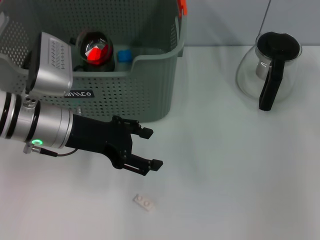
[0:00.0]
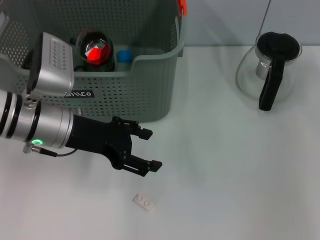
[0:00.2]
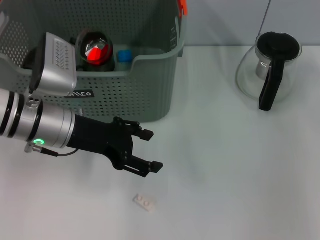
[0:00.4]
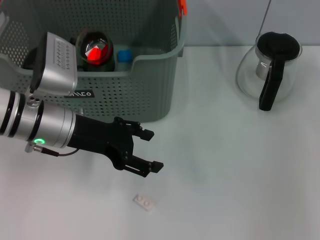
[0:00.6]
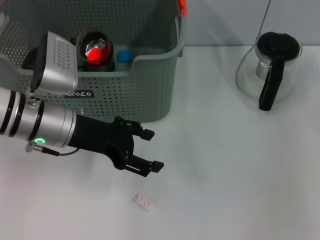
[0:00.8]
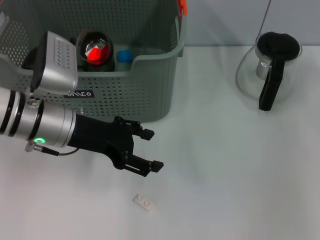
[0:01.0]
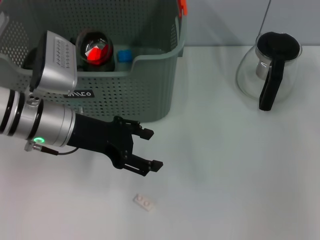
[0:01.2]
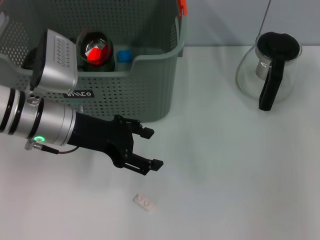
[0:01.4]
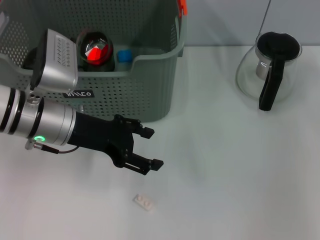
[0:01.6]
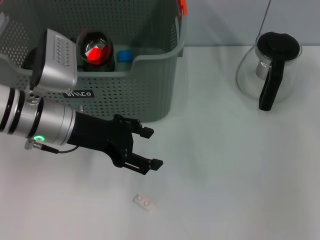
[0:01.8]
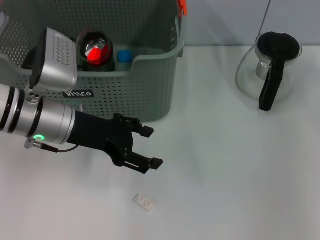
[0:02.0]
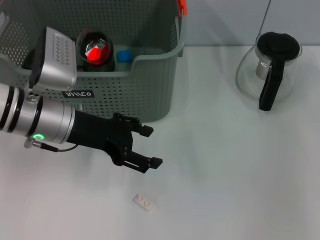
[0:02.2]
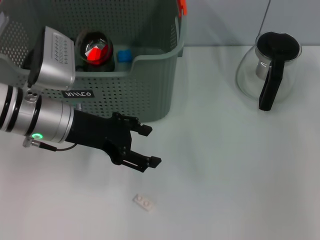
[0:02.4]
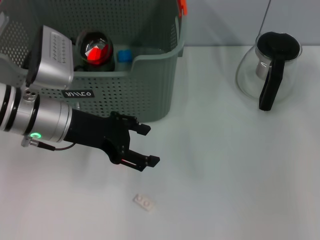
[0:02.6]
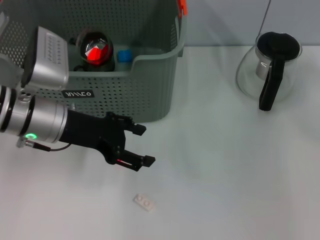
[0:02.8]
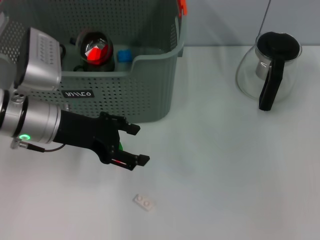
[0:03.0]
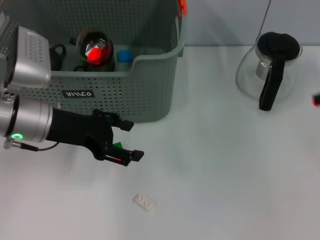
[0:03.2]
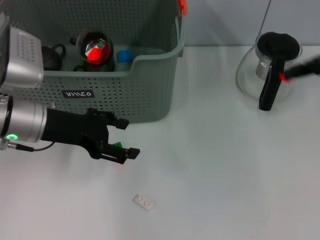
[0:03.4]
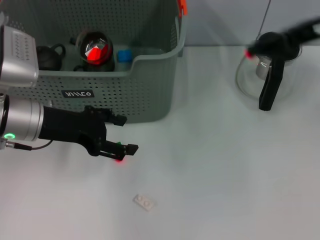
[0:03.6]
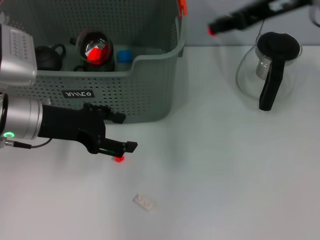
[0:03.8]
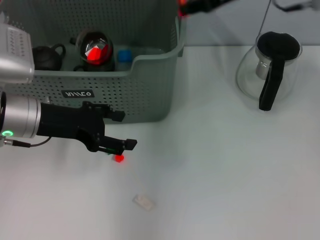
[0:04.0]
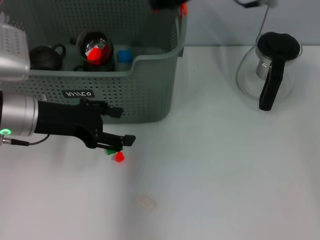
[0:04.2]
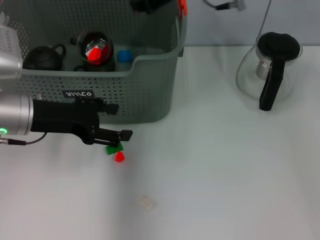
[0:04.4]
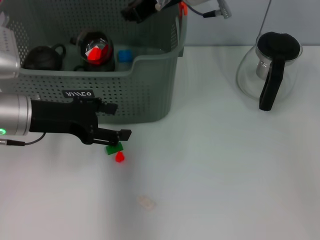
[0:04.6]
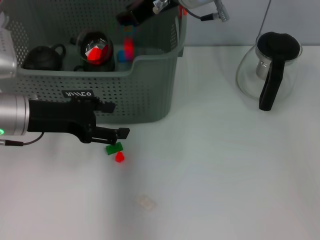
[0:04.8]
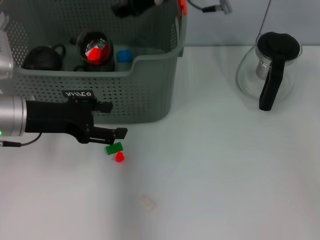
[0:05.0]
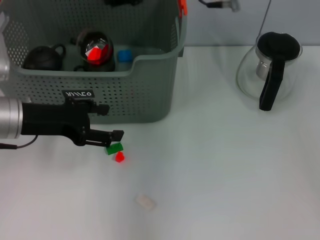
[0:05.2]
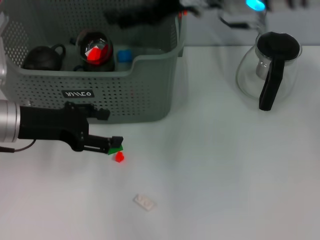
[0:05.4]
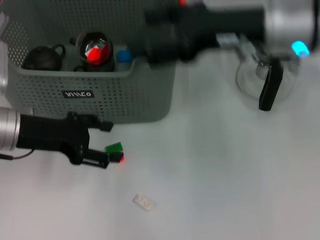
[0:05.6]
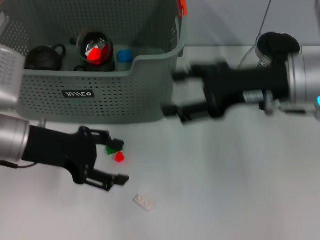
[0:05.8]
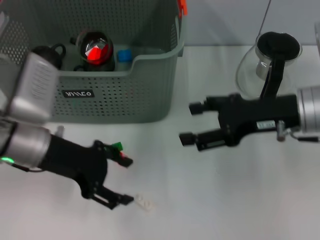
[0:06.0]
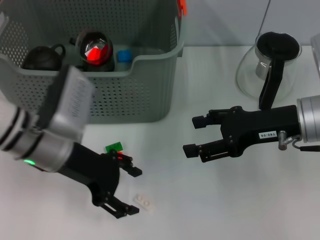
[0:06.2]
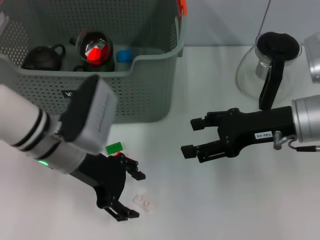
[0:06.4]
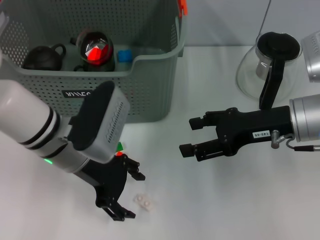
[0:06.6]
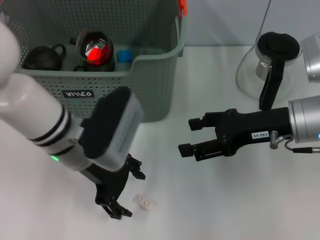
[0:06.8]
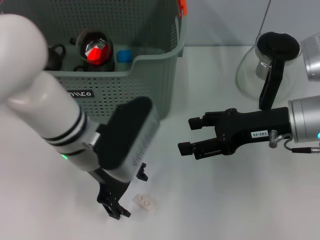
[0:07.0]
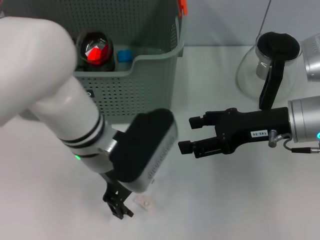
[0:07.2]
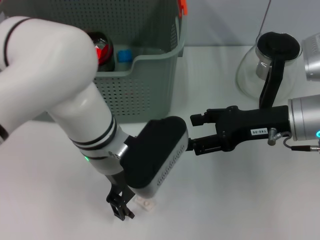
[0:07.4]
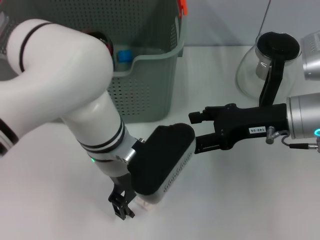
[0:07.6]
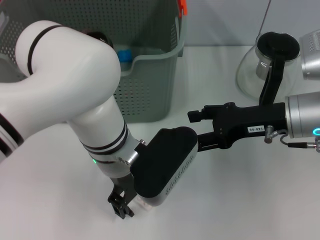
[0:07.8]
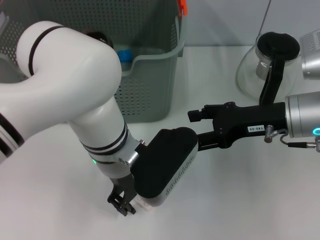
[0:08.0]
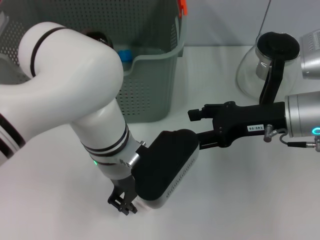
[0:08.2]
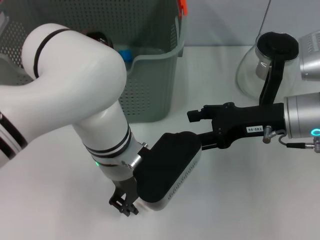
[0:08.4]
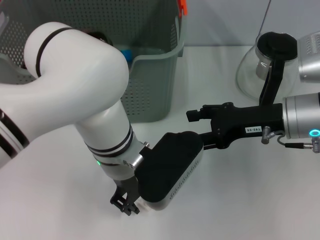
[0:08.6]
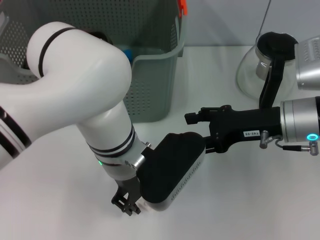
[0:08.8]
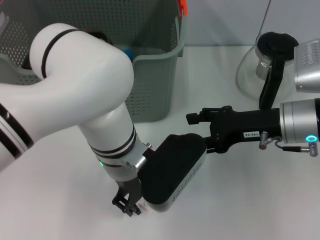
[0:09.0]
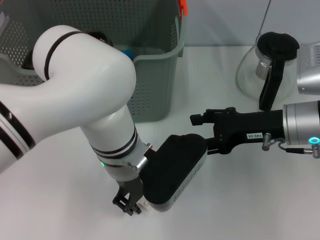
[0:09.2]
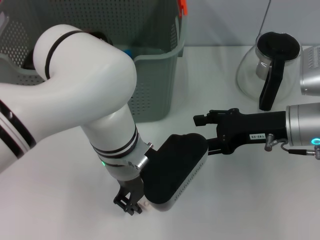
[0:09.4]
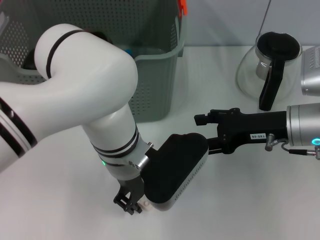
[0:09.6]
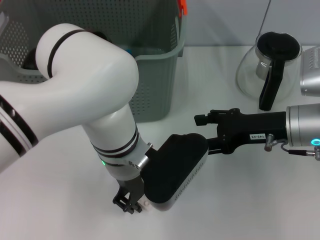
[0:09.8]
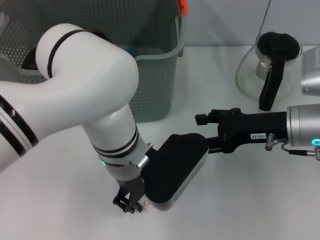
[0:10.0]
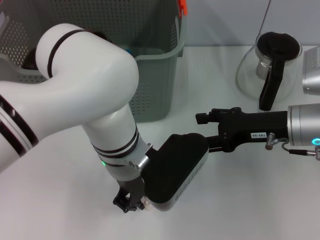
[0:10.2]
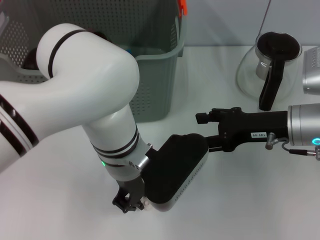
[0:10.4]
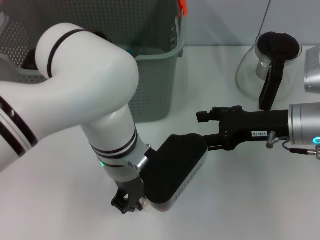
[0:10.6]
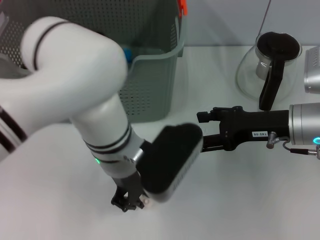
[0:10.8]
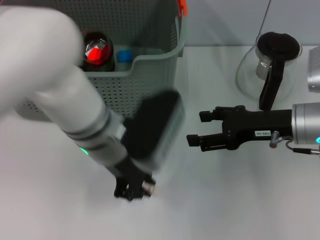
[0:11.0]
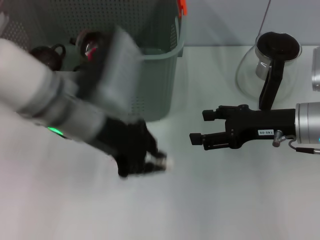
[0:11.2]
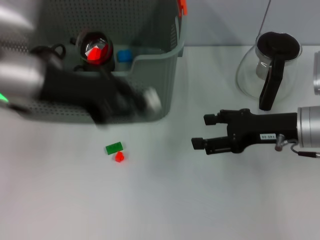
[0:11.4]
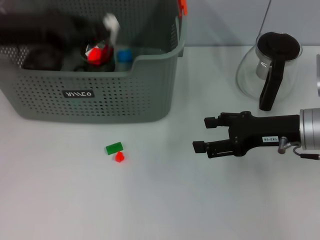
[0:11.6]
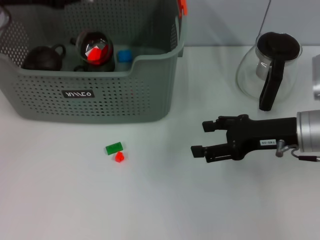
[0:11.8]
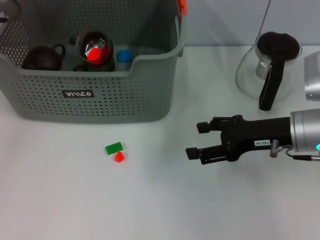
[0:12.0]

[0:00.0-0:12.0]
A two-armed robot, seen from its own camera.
Task of the whole recording: pick up the teacup on the table and place it into the storage bin, pick up the block on the table and place it into the storage bin.
Step, 0:00.0 to 0:02.0: Grasp the orange block with left gripper.
Step, 0:05.2 to 0:10.4: Grasp the white block with left gripper.
0:00.0 to 0:01.6: Both grippers stay about where they are.
0:01.6 to 0:03.0: The right gripper is displaced to the left, upward and forward by about 15 cm, and closes up.
0:03.0 to 0:04.4: The right gripper moves to the left, about 30 cm.
0:04.4 to 0:06.0: The right gripper moves to the right, backward and downward, roughly 20 cm, and opens.
0:06.0 to 0:07.6: The left gripper travels to the right by approximately 15 cm.
0:07.6 to 0:09.0: The left gripper closes up.
0:09.0 to 0:10.4: The grippers make only small movements.
0:10.4 to 0:12.0: The left gripper goes roughly 25 cm to the left, forward and upward.

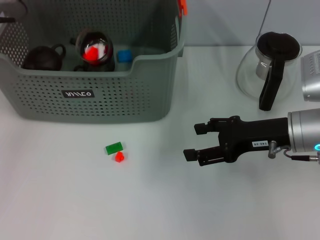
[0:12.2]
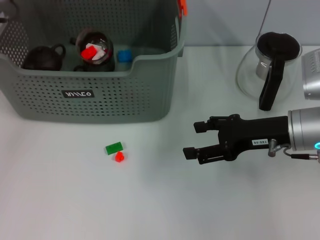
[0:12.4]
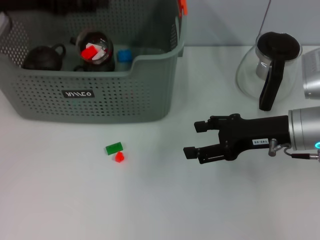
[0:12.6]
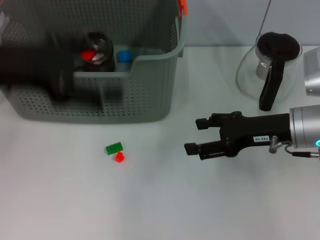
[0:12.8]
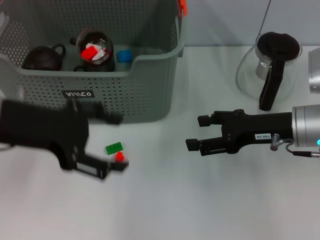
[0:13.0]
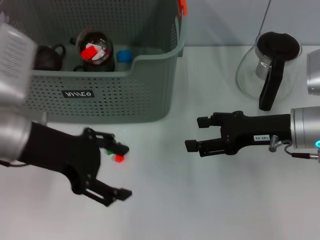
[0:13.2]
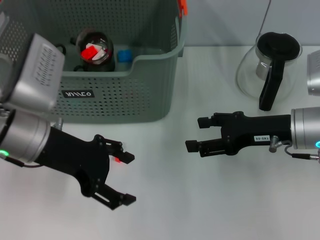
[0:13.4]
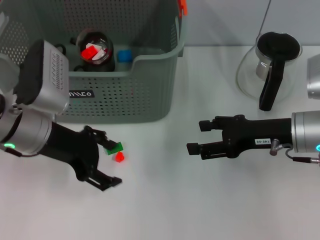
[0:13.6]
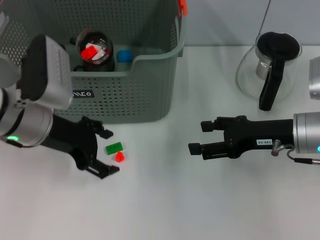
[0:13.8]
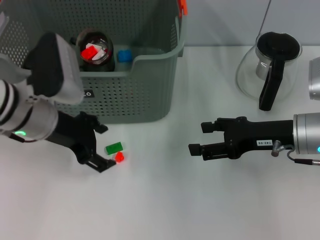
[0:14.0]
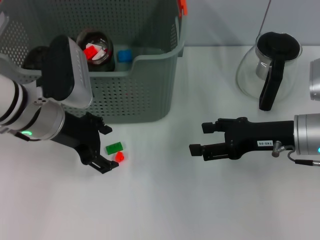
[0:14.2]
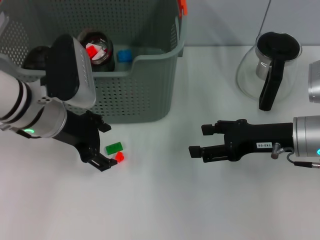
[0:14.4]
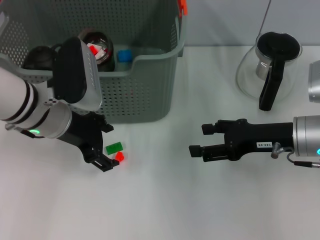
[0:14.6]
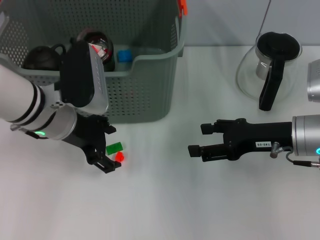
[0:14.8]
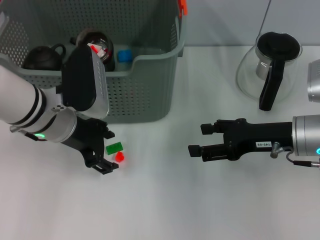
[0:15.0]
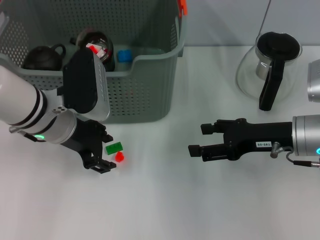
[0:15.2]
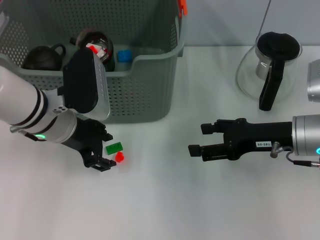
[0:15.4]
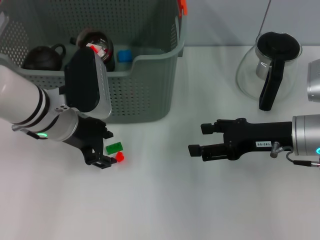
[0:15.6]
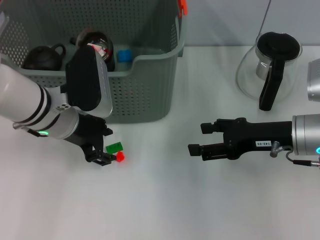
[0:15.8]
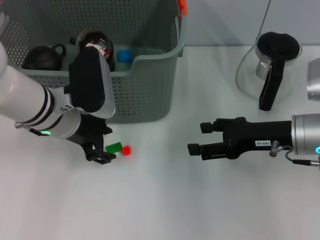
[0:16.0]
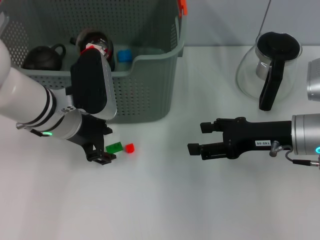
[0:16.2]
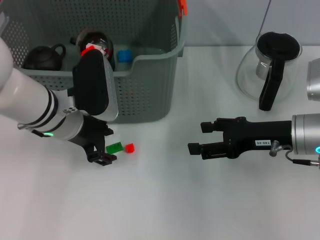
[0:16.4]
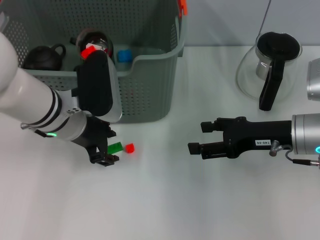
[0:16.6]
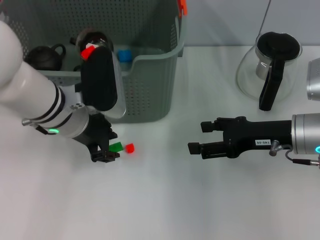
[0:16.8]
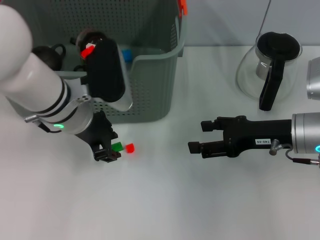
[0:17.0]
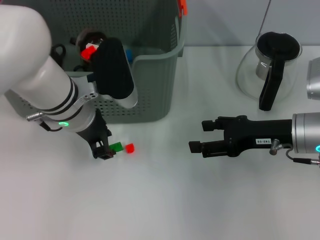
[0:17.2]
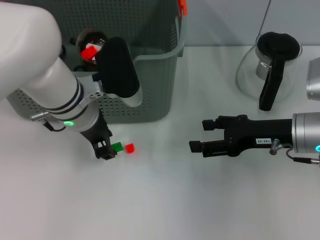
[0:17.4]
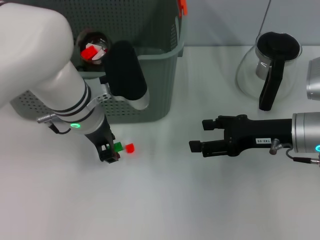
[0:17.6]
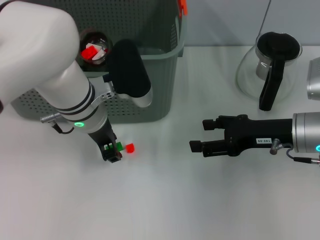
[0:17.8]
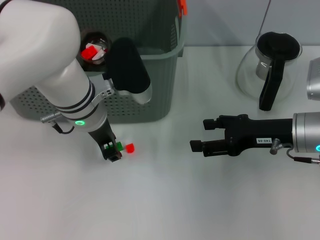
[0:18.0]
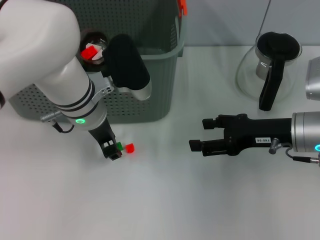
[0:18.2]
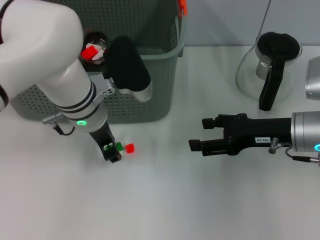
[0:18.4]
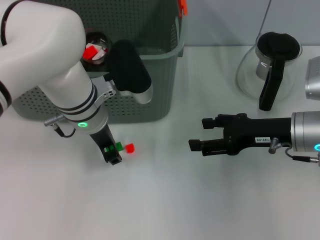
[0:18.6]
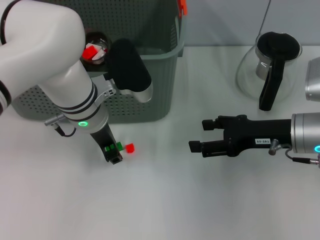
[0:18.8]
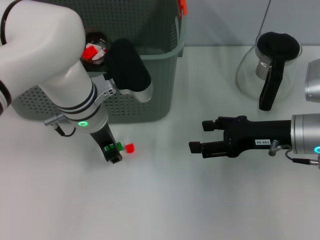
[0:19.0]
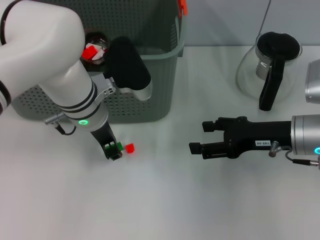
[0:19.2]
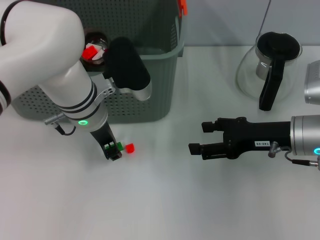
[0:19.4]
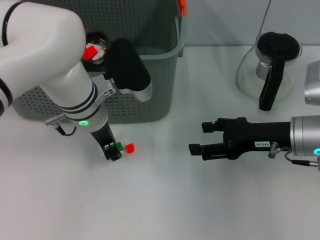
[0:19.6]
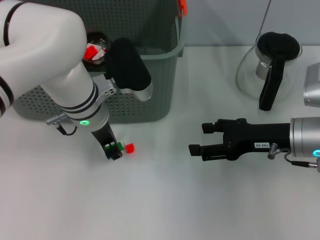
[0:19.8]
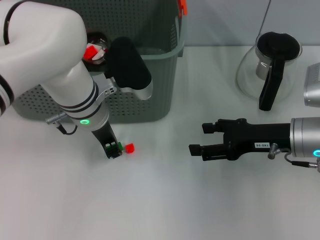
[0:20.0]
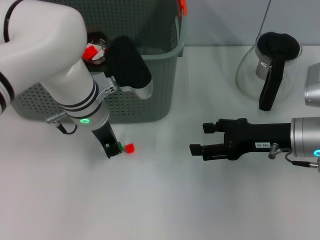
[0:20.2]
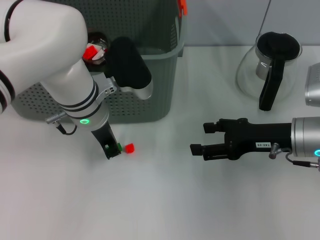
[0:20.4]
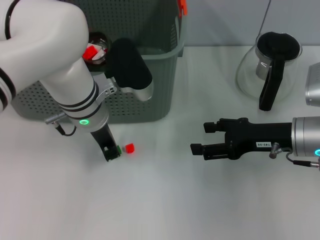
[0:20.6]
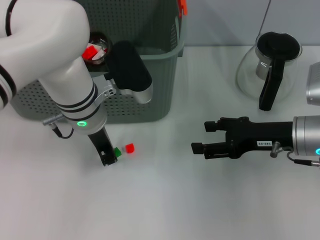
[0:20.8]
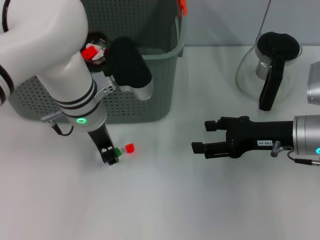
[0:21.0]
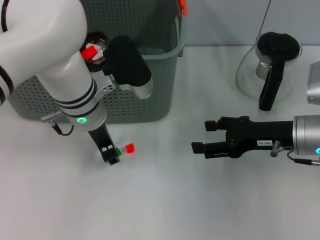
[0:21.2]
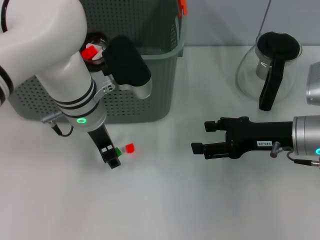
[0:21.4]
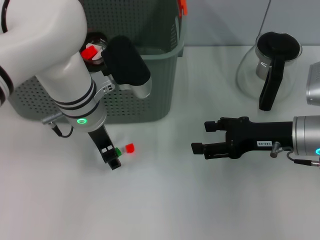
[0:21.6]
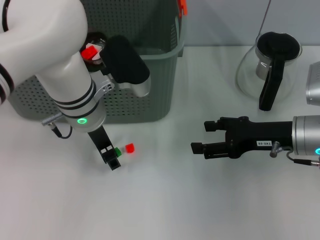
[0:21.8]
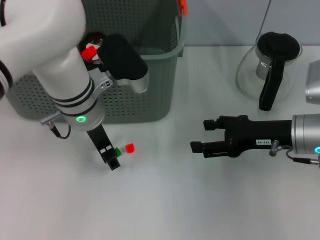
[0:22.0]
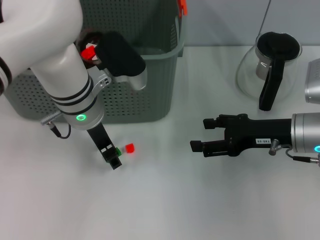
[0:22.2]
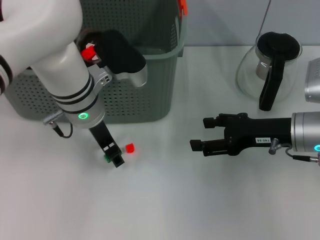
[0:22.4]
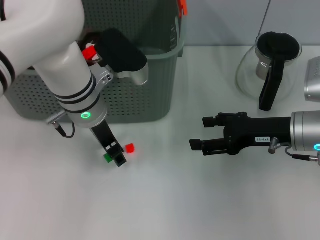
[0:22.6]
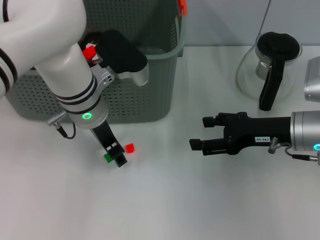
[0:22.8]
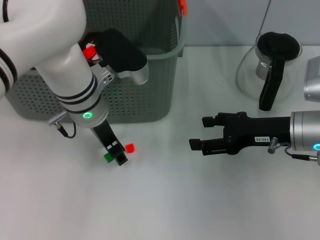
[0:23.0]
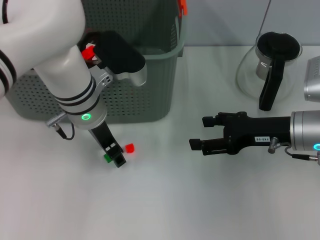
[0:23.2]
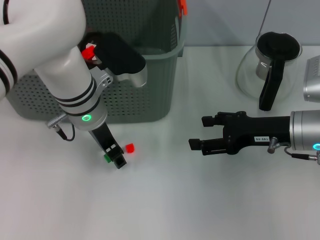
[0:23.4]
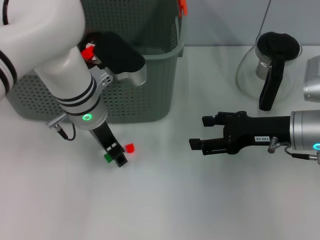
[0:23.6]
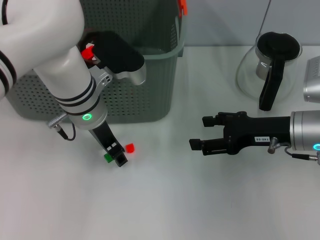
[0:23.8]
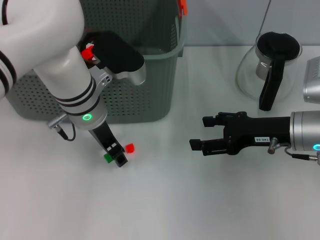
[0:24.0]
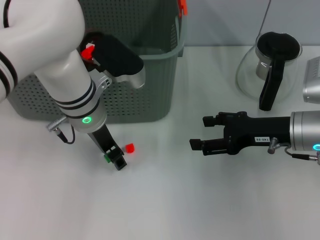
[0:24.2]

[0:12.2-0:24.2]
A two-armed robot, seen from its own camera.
Task of the whole recording: pick up the teacup on the table and place it into the storage bin, pick up the block on the table and place it into the storage bin.
0:12.2 to 0:13.8: The left gripper goes about 15 cm backward and downward, and opens.
0:13.8 to 0:15.2: The grippers make only small movements.
0:15.2 to 0:16.6: The left gripper closes its fingers.
0:18.2 to 0:19.8: Both grippers stay put.
0:19.8 to 0:21.2: The two grippers keep their place.
0:21.2 to 0:22.6: There are only small adjustments of the grippers.
0:22.6 to 0:24.2: The two grippers keep their place.
